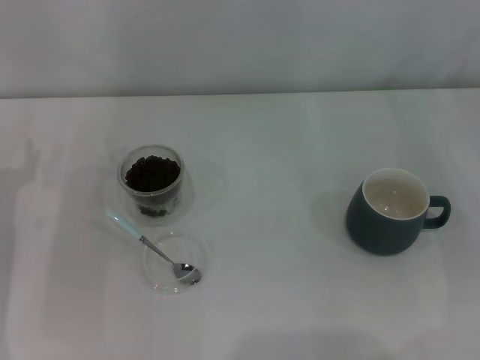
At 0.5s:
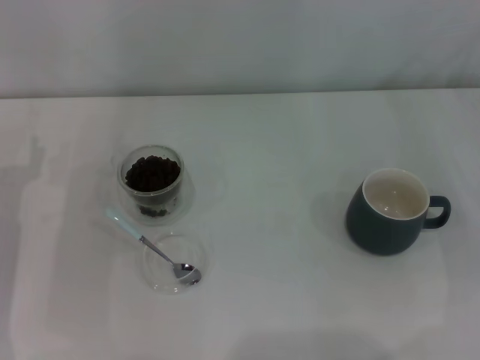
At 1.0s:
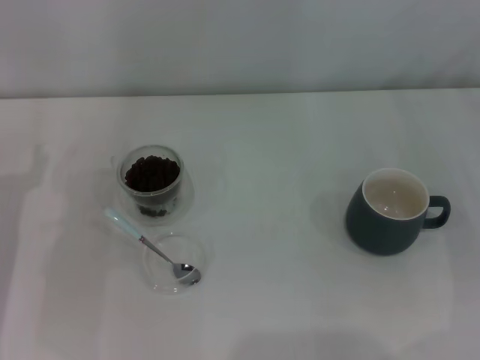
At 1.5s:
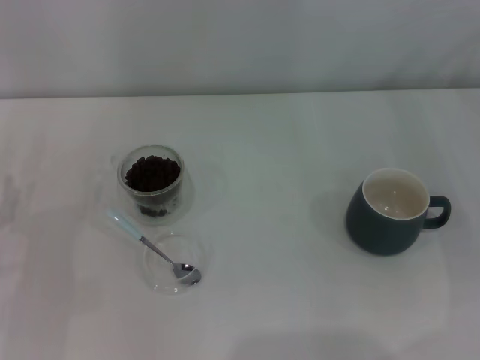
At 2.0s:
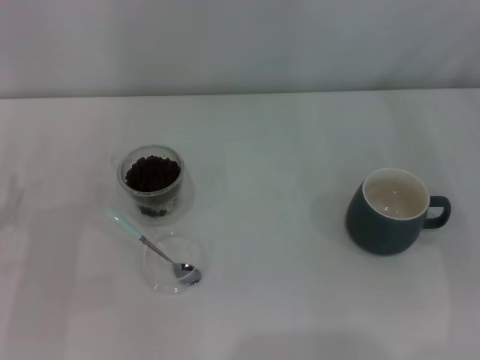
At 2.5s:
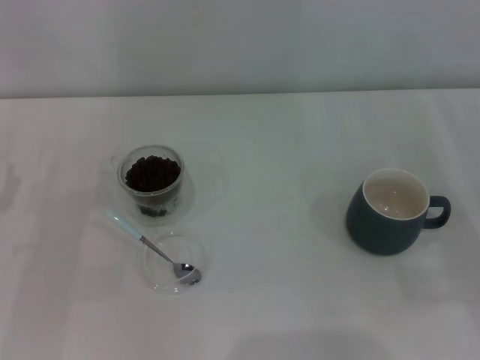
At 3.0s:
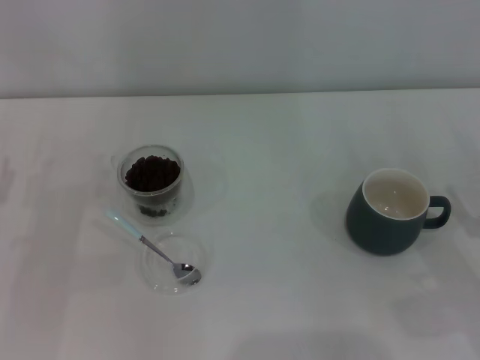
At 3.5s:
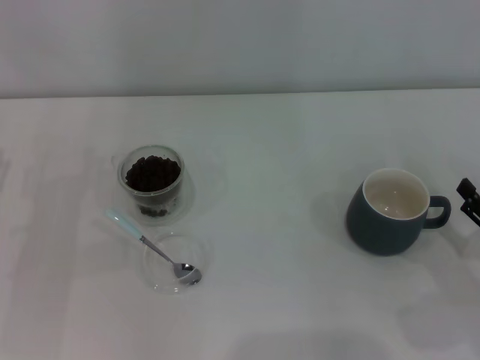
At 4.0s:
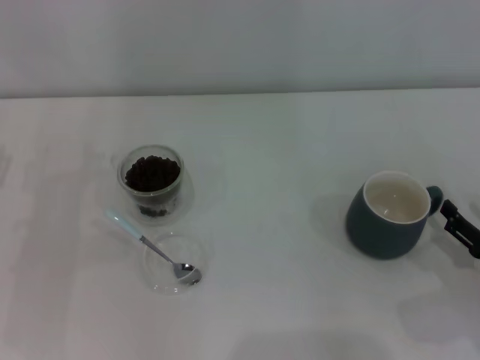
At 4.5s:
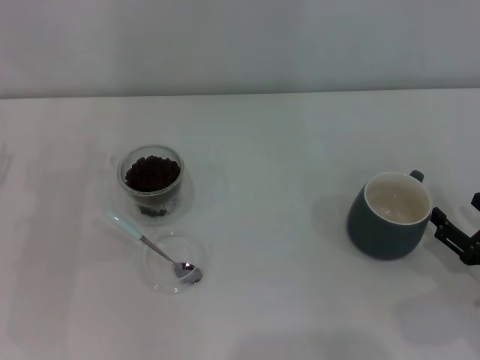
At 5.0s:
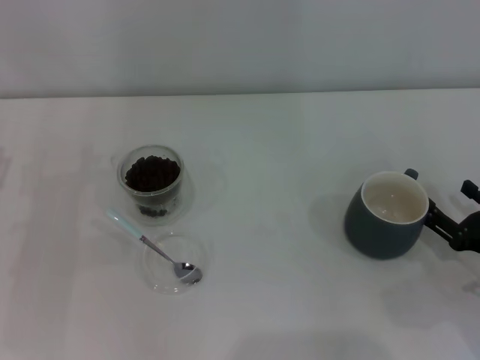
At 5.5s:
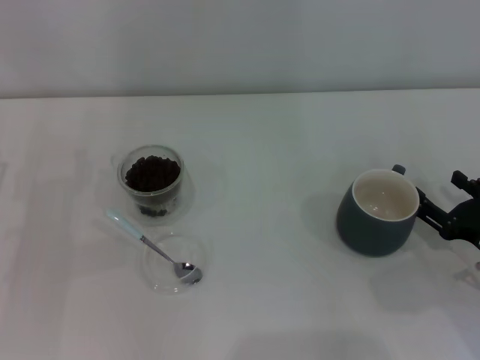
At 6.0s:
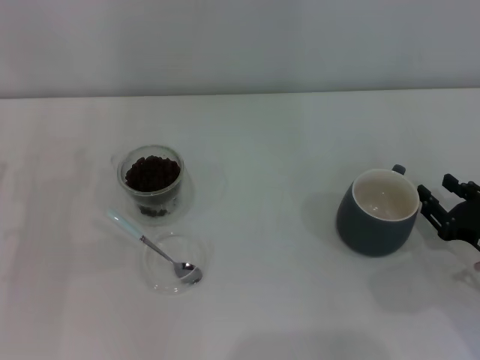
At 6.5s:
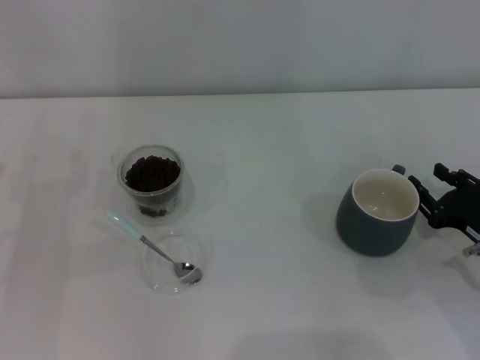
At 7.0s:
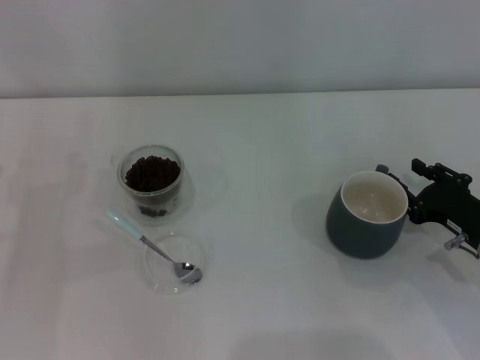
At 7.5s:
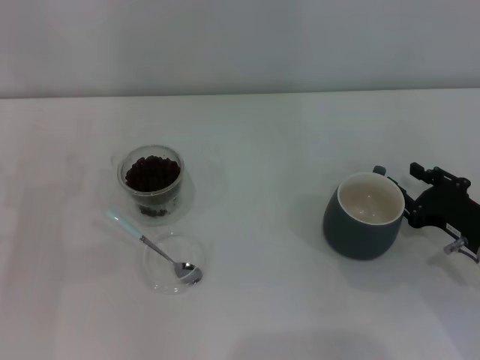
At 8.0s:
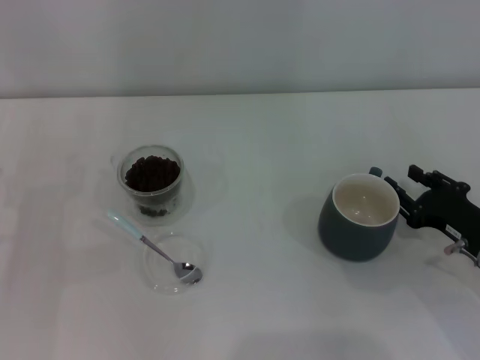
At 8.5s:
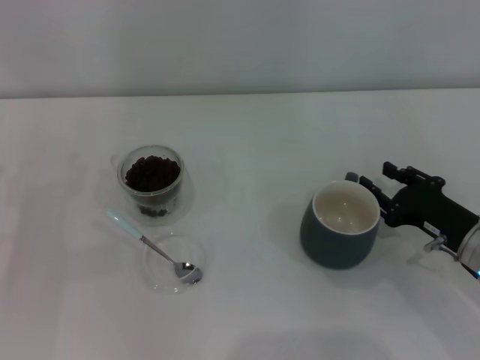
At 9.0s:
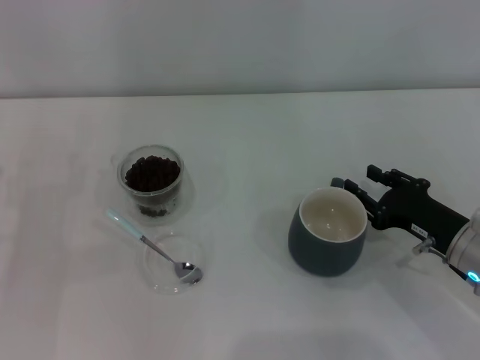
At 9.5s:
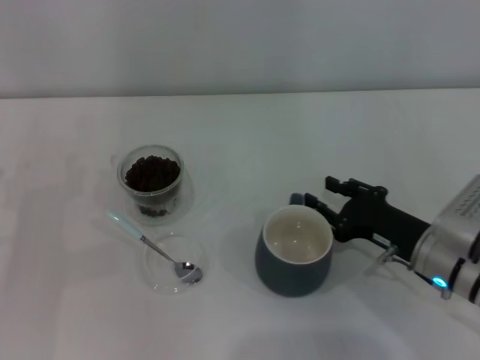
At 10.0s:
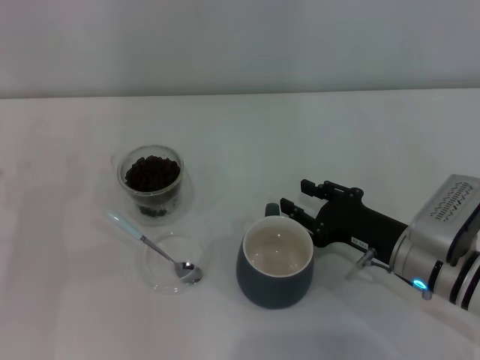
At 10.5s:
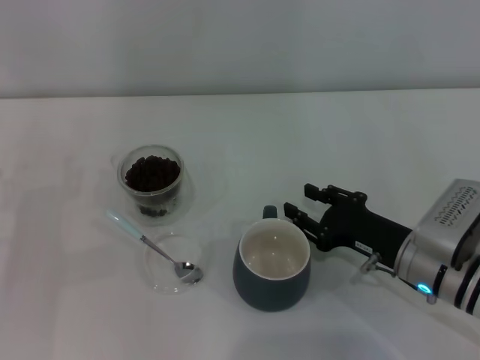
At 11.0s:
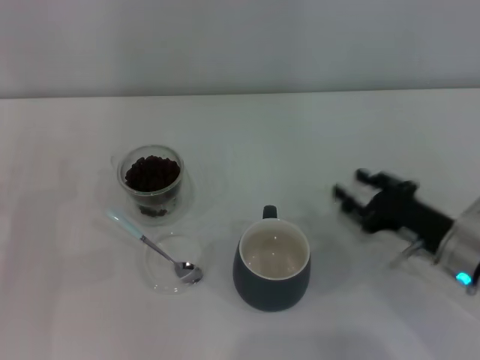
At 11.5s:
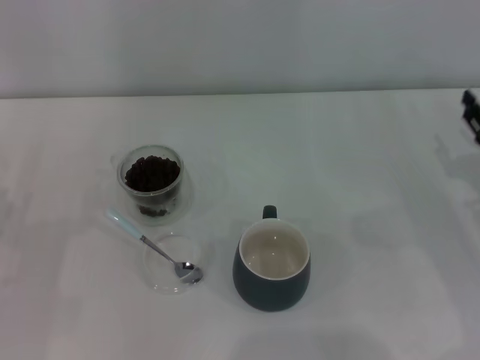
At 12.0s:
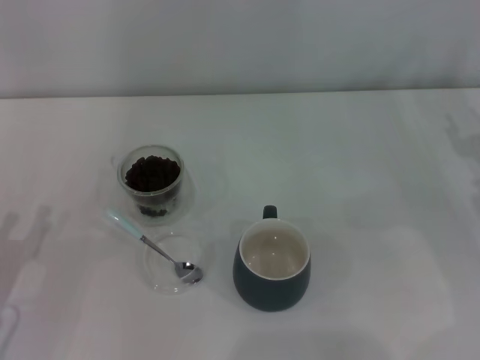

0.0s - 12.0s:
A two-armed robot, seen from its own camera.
Task of the whole recording: Use a blue spoon to take out the coffee beans from the glass and pour them into the gray cup.
Step, 0.0s - 10.5s: Move the cup to the center of view with the left gripper.
2.0s - 4.0s: The right gripper heads backward and downward, covering approximately 15 cm.
4.0s - 6.0s: The right gripper closes up.
6.0s - 8.0s: There are only small adjustments of the grippers.
8.0s - 10.0s: The right gripper travels to the left by some 10 cm.
10.0s - 12.0s: The right gripper moves to the right, about 15 cm. The left gripper moves backward, some 10 cm.

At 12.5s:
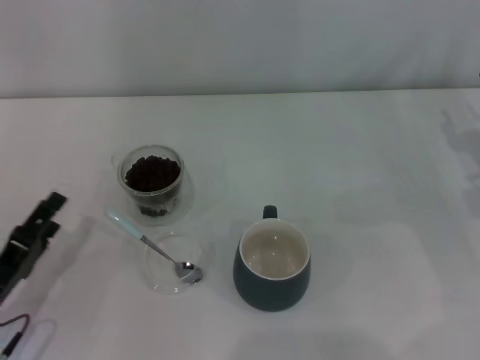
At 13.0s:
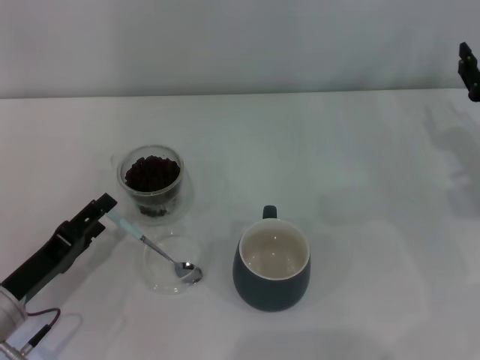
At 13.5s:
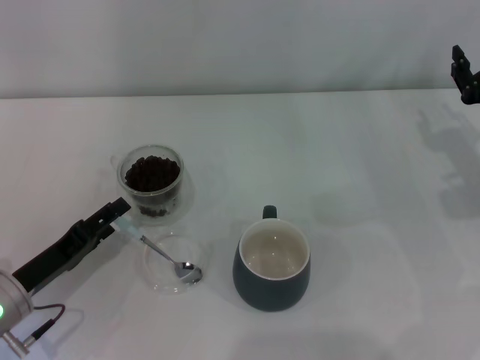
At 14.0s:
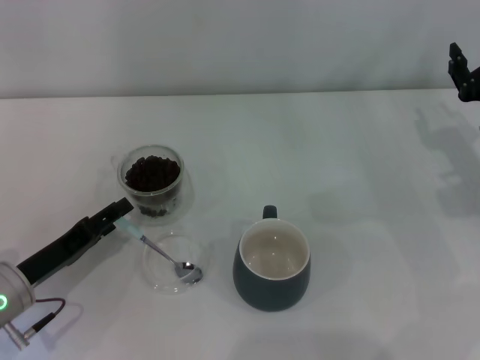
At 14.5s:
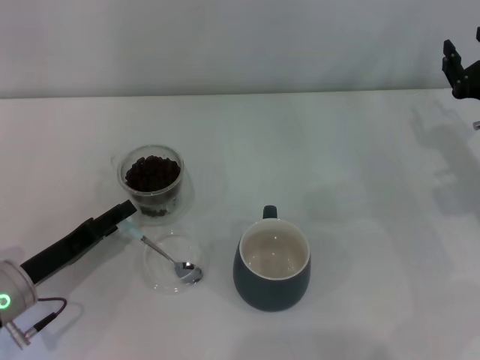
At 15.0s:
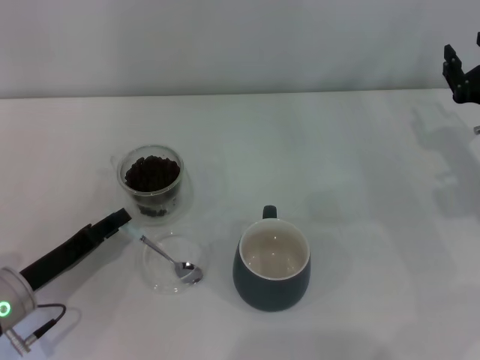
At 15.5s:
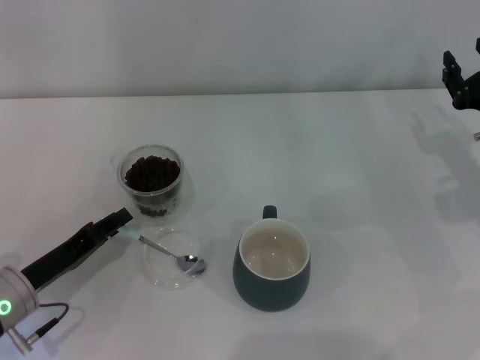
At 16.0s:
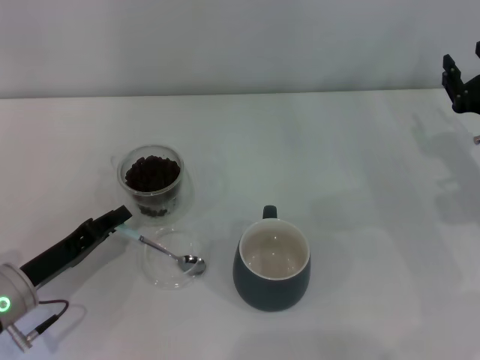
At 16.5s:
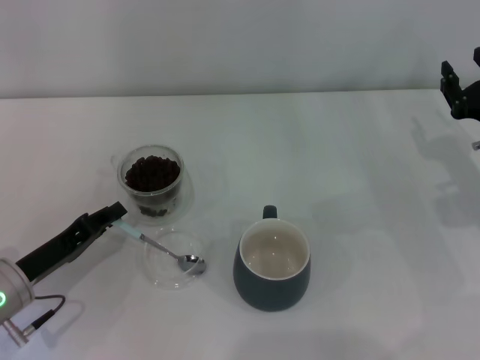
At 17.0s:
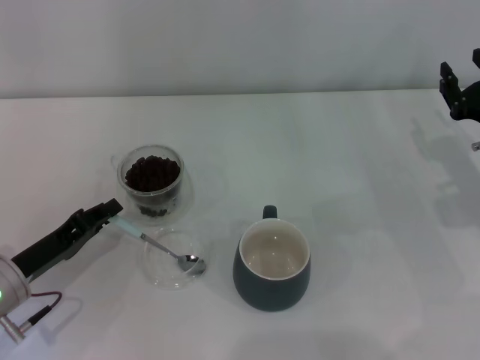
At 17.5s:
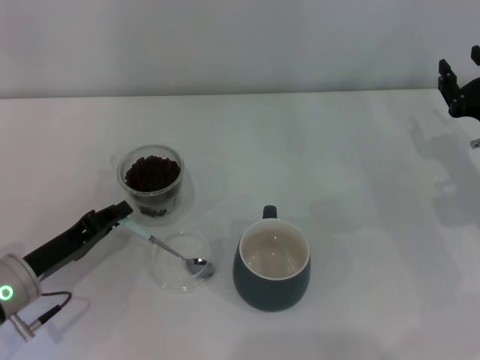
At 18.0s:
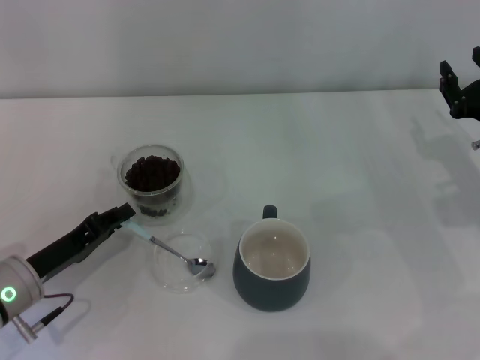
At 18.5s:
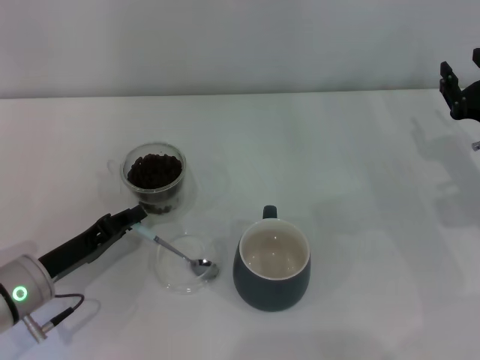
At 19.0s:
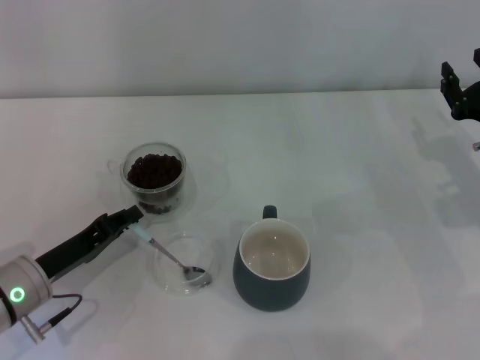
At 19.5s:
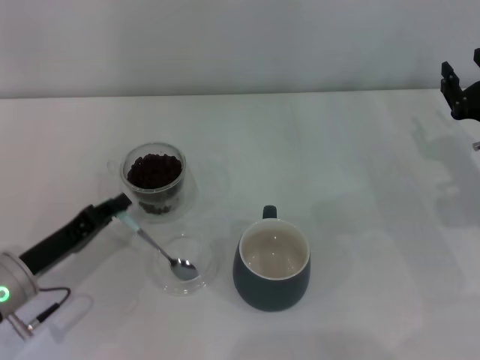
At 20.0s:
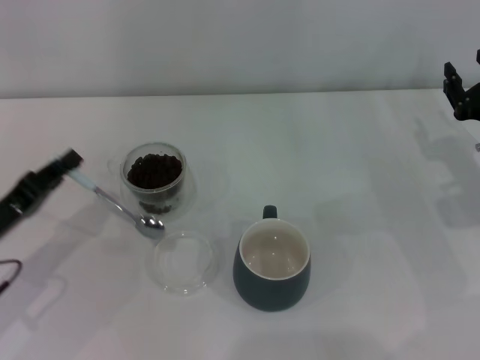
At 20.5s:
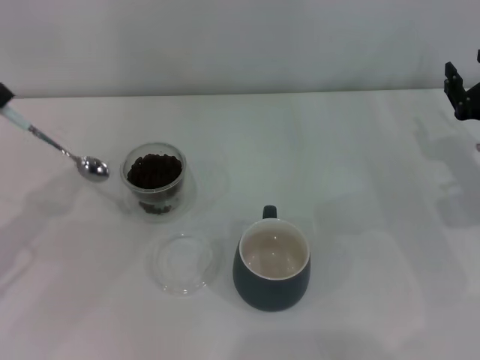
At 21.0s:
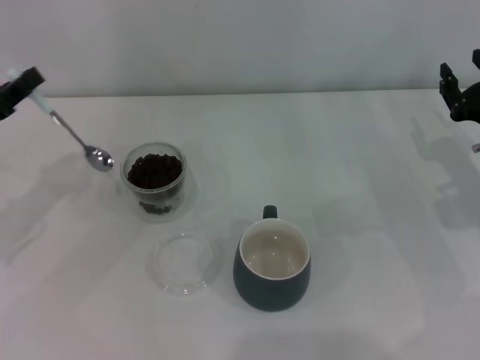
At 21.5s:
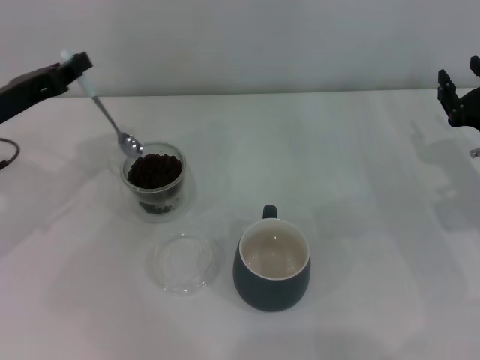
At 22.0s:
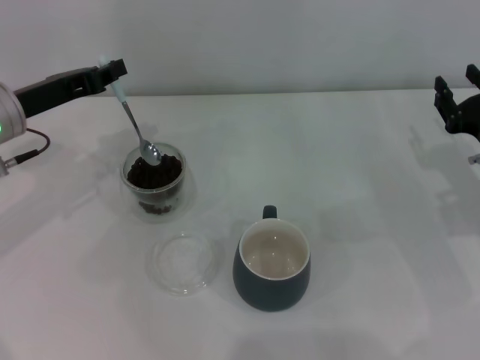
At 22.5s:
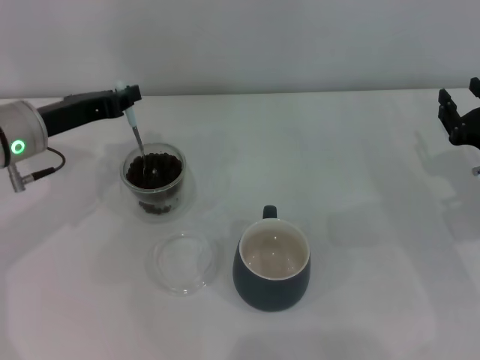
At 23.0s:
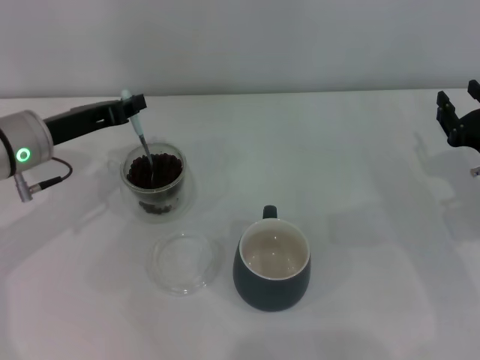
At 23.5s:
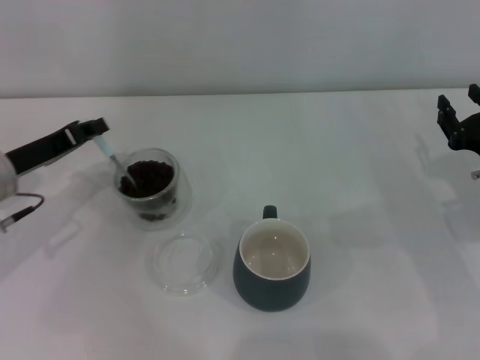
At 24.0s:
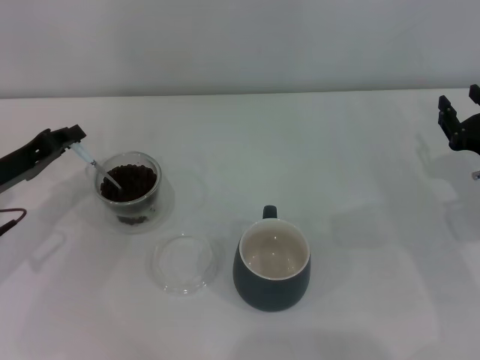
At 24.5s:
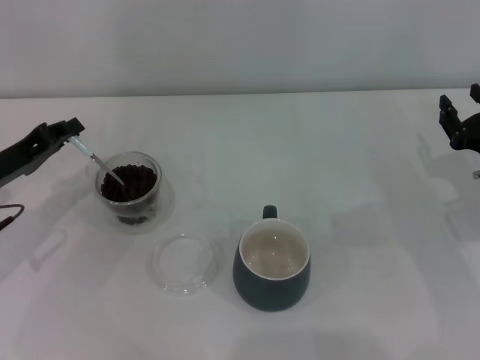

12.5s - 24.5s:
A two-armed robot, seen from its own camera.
Task of the whole recording: Use a blue spoon to take out the coffee beans from the glass and pour them into the gray cup.
Step, 12.5s - 19.5s: Pick up the spoon with the right gripper.
12.5s - 14.5s: The left gripper is displaced forward by roughly 5 cm.
14.5s - 16.5s: The left gripper closes.
16.5s - 18.5s: The grippers move only a little.
18.5s - 20.5s: The left gripper shifts some 15 cm upward and to the left.
20.5s - 22.5s: The left gripper travels forward and to the right by roughly 15 cm.
22.5s - 24.5s: The left gripper heads to the left and backward, covering approximately 10 cm.

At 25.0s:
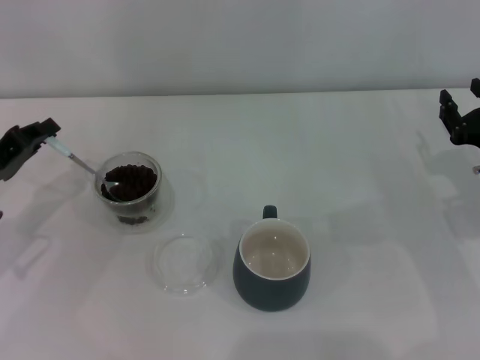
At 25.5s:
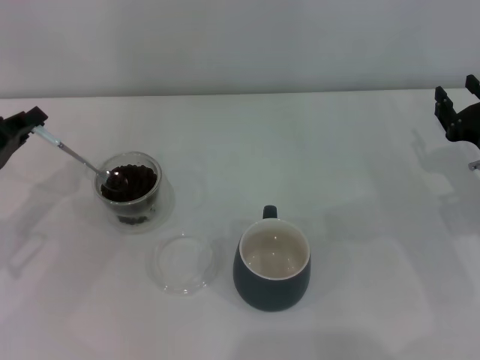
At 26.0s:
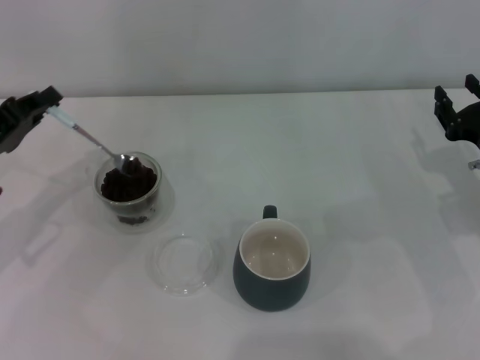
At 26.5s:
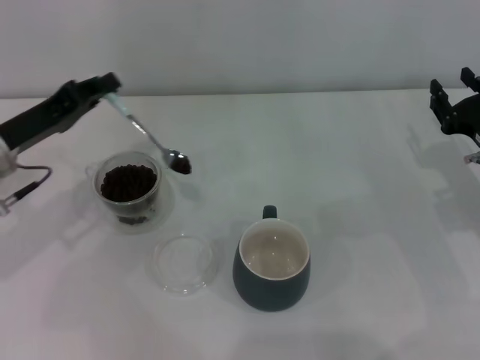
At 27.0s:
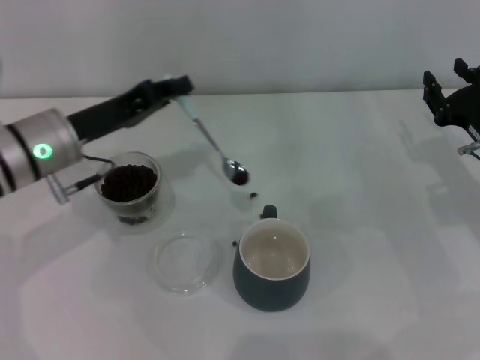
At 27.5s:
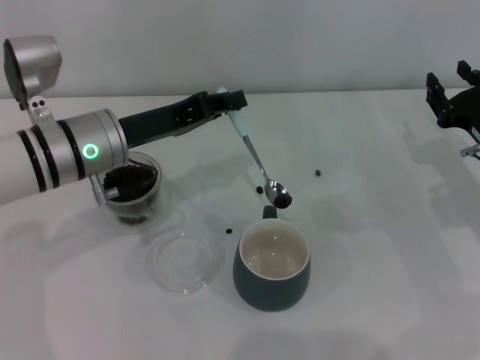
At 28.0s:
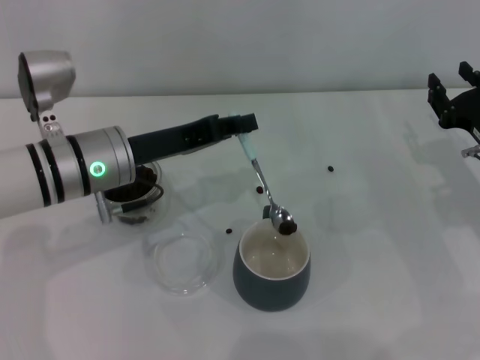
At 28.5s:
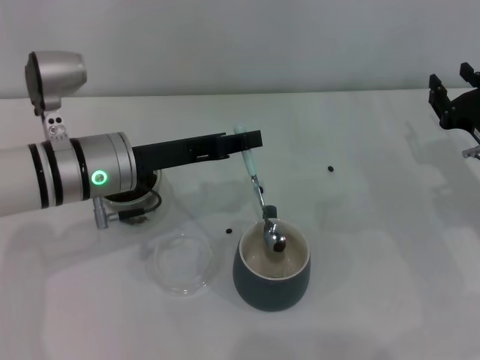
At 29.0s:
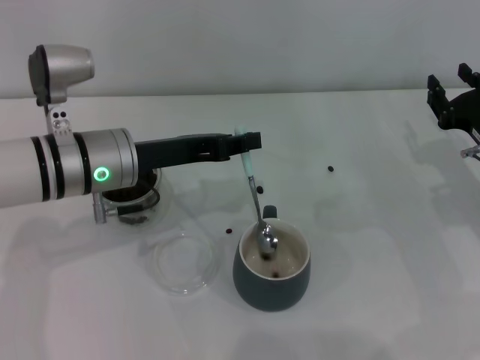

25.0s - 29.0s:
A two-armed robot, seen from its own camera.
Task of the whole recording: Use a blue spoon to take out the coffee beans from the glass and pour them into the gray cup.
25.0s - 27.0s: The left gripper shifts about 10 cm to the right.
